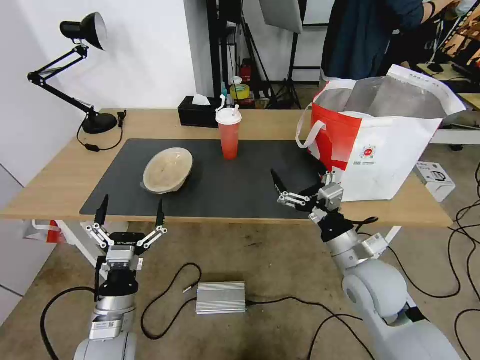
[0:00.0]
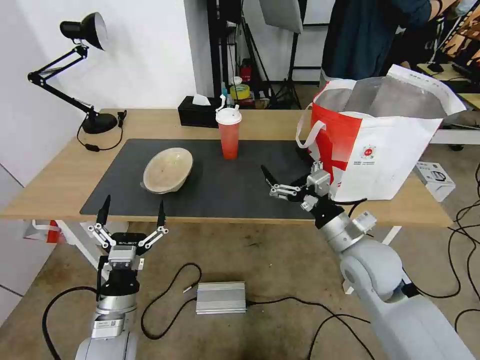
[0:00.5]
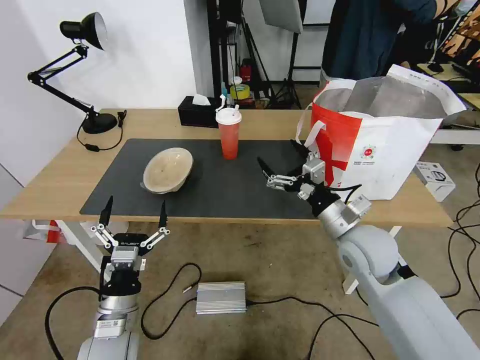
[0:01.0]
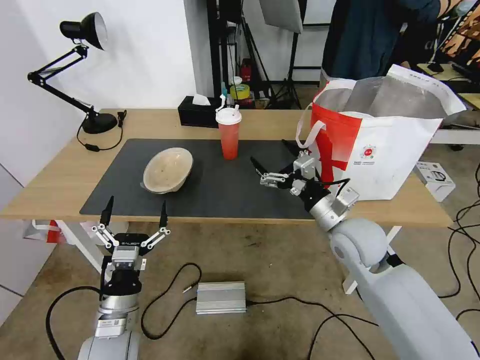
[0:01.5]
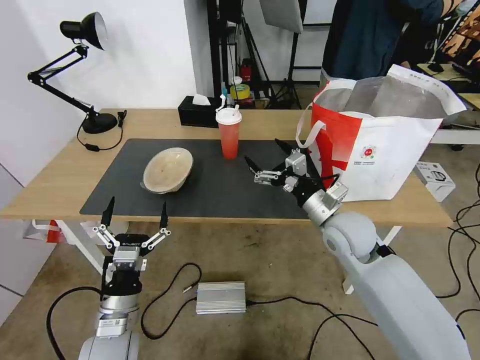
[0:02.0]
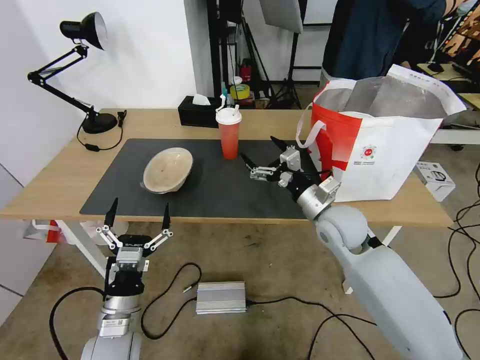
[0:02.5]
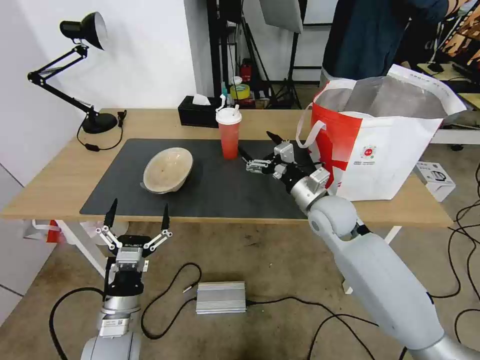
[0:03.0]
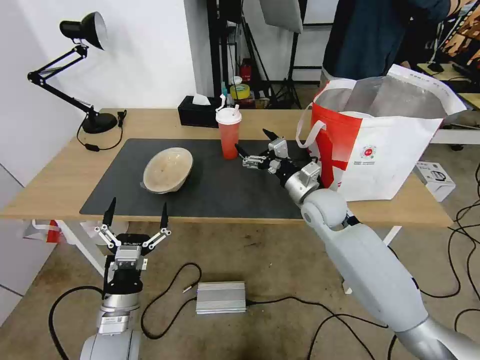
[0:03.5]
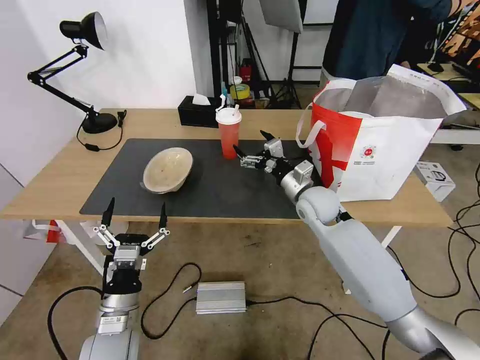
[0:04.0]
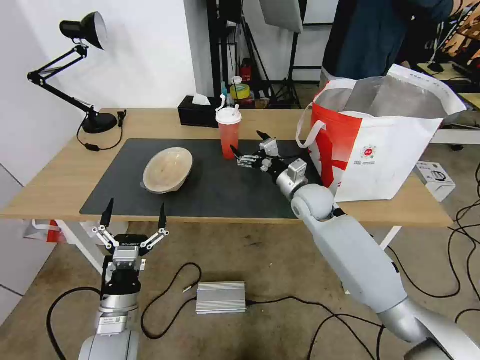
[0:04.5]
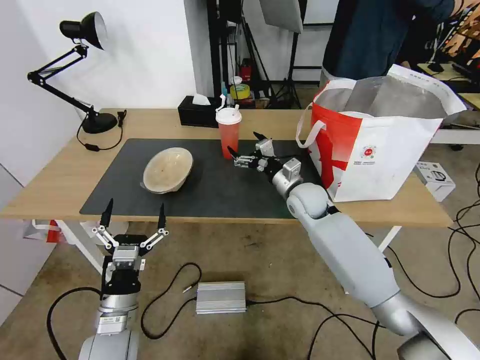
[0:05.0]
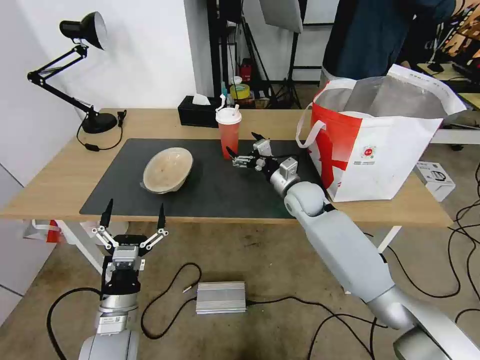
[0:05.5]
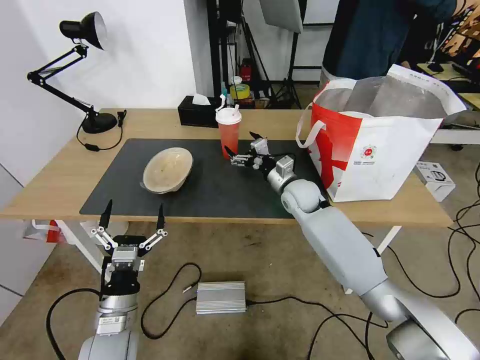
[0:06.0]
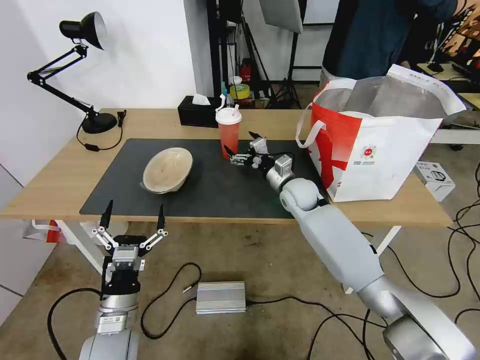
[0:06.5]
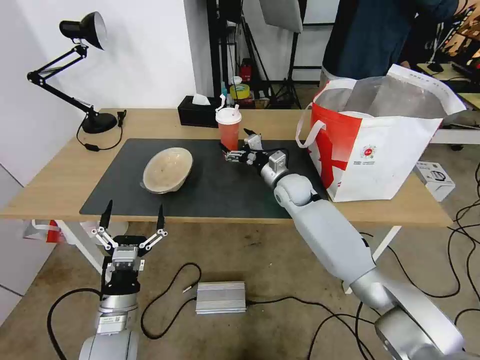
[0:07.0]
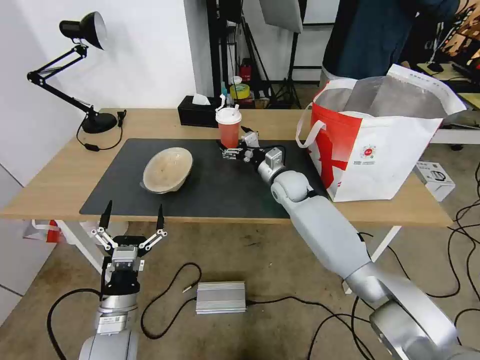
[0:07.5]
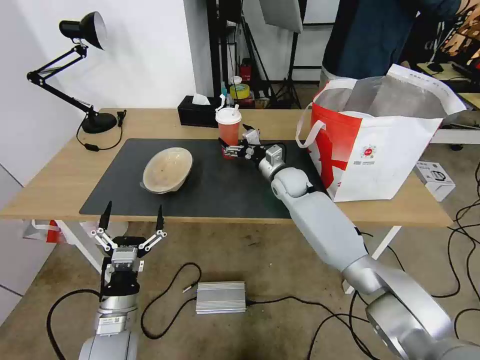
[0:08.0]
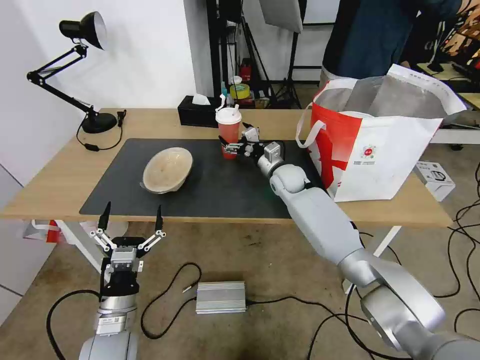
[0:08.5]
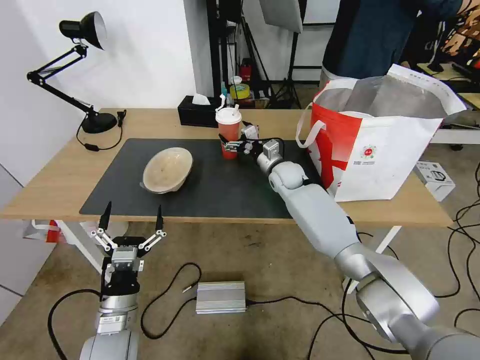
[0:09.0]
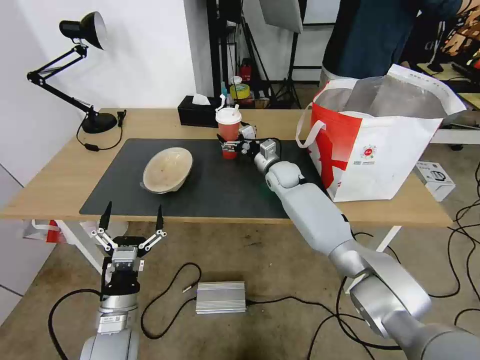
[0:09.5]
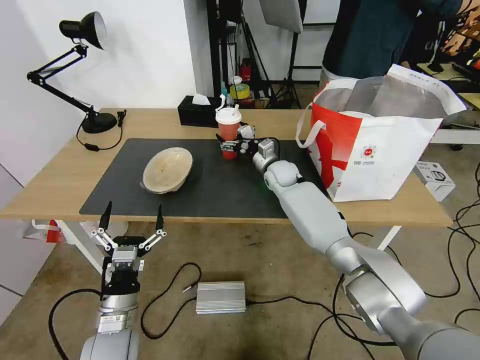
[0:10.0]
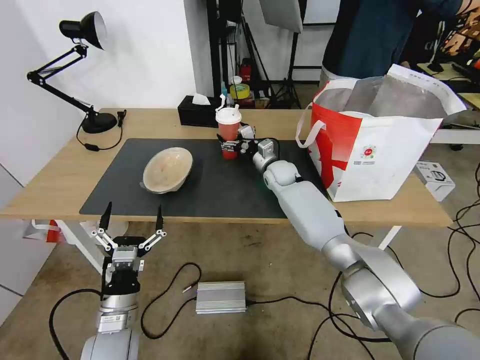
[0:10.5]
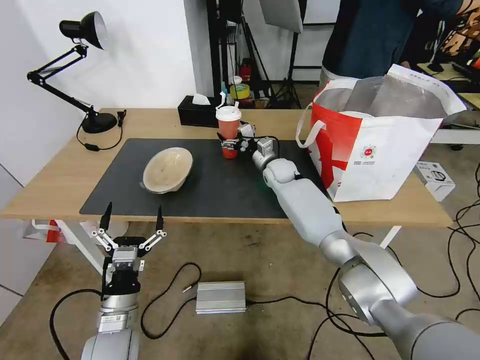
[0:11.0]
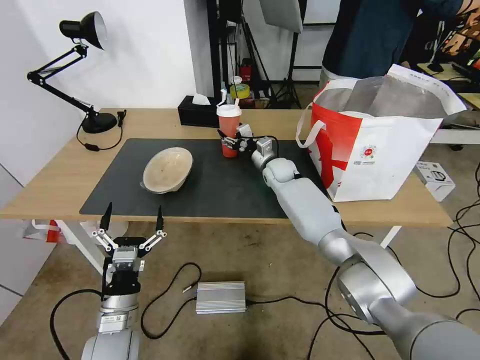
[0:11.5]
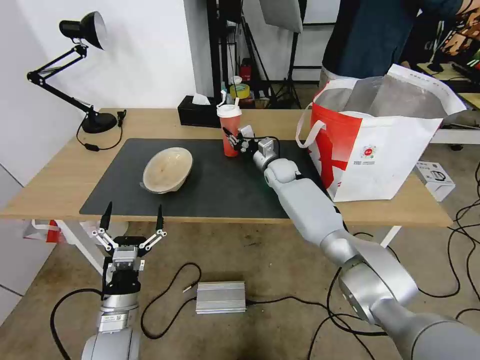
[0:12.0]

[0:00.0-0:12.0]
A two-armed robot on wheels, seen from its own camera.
Task of the whole recording: Pick up the trash from the table and place it into the takeout bag.
0:00.0 to 0:02.0: The right gripper travels forward by about 10 cm.
0:02.0 to 0:04.0: The right gripper shifts approximately 10 cm forward.
0:04.0 to 0:06.0: The right gripper ends up roughly 5 cm from where it was.
0:06.0 to 0:08.0: The right gripper ends up some 5 cm from where it was.
0:08.0 to 0:10.0: The grippers move only a little.
0:10.0 to 0:12.0: The right gripper closes its fingers.

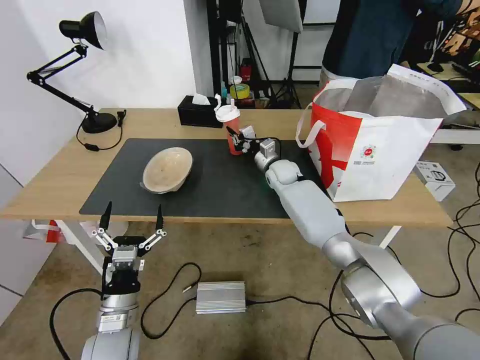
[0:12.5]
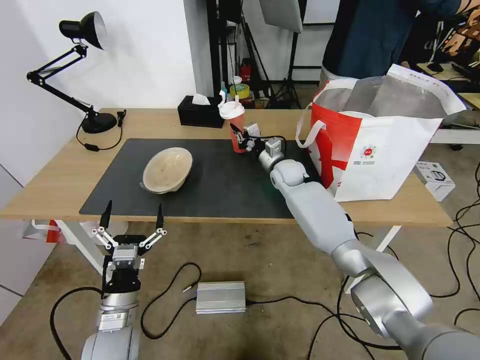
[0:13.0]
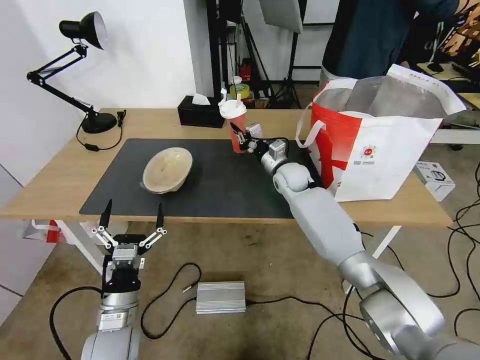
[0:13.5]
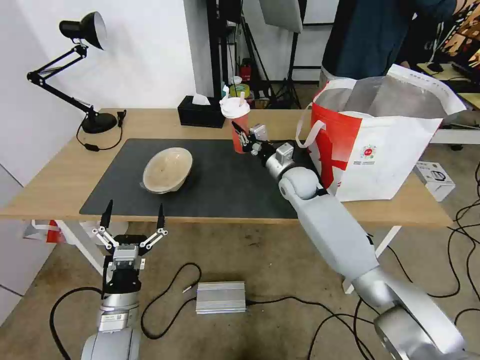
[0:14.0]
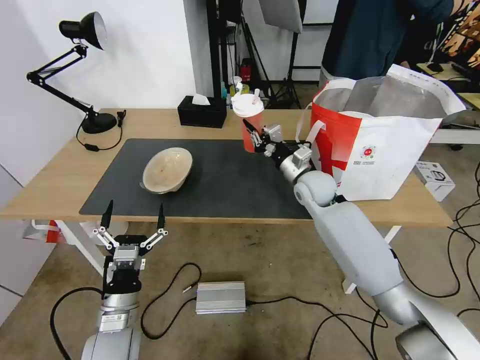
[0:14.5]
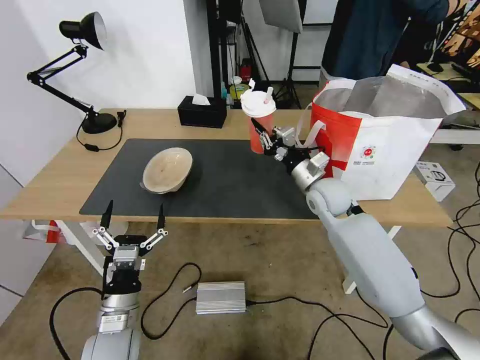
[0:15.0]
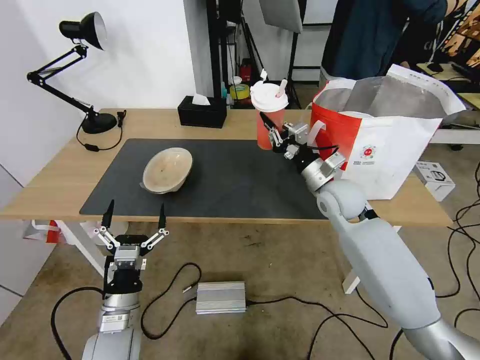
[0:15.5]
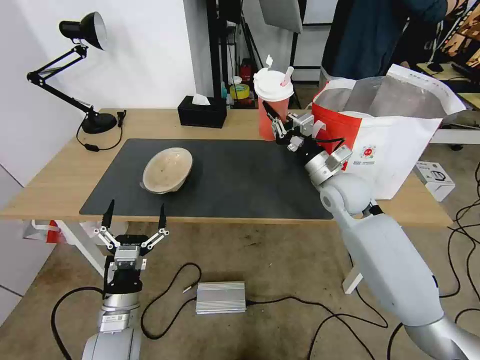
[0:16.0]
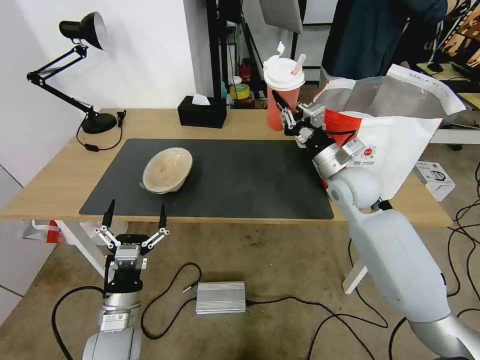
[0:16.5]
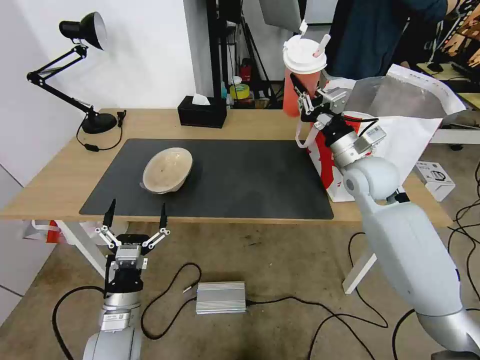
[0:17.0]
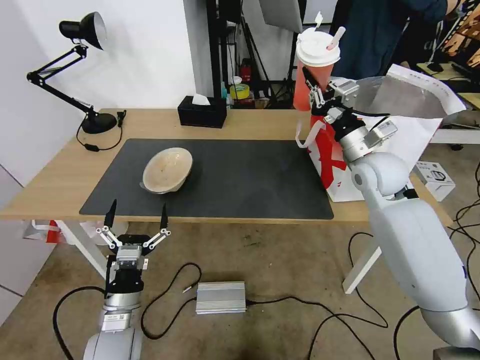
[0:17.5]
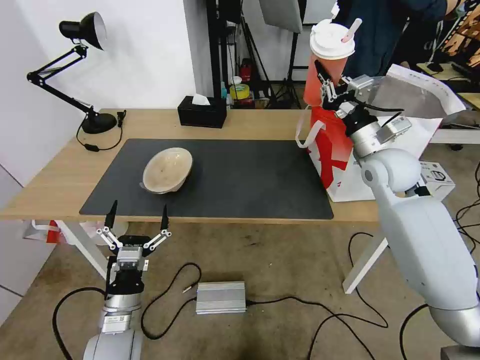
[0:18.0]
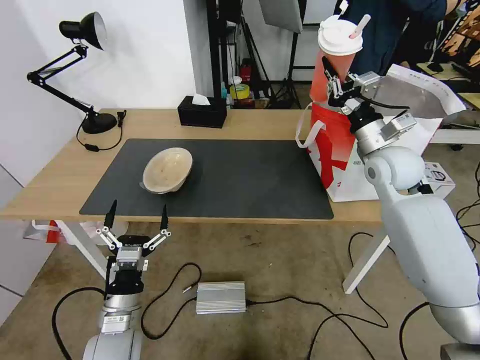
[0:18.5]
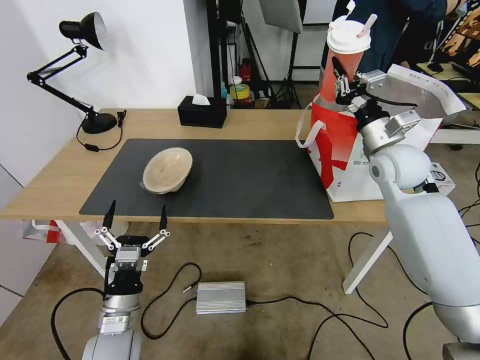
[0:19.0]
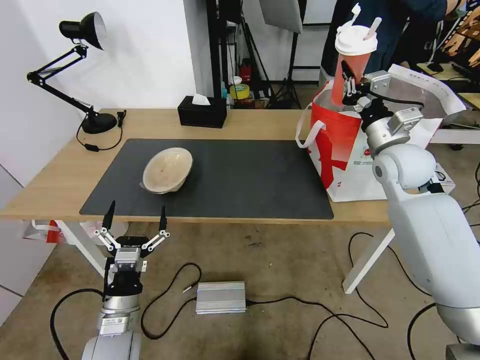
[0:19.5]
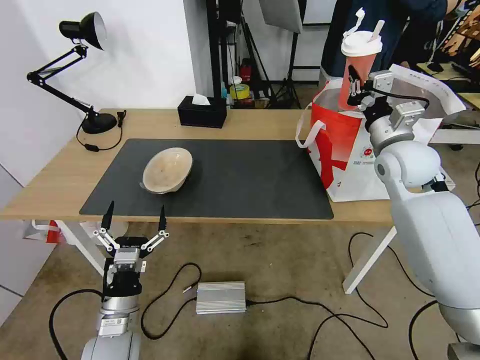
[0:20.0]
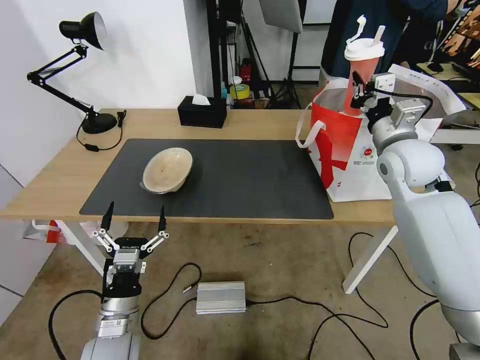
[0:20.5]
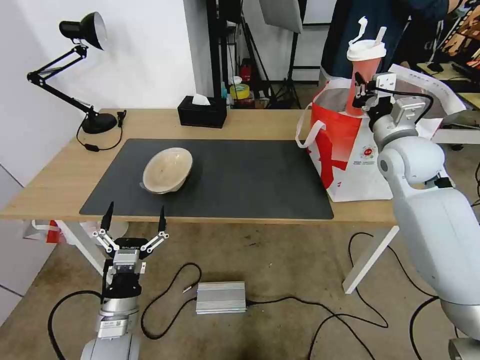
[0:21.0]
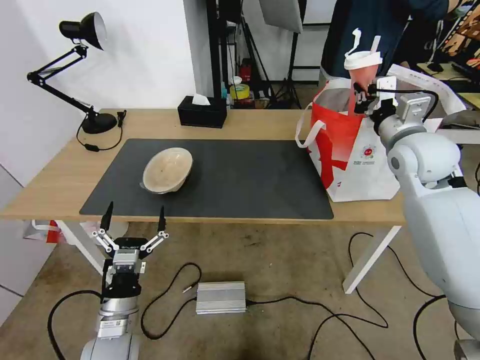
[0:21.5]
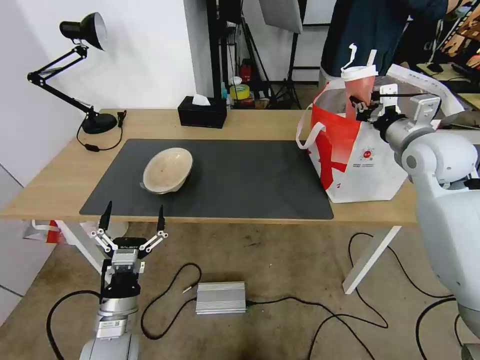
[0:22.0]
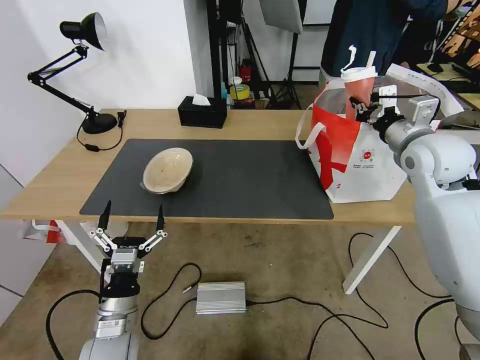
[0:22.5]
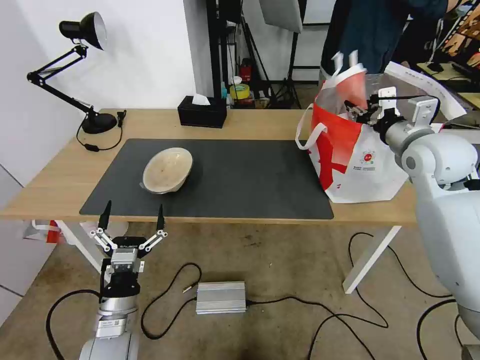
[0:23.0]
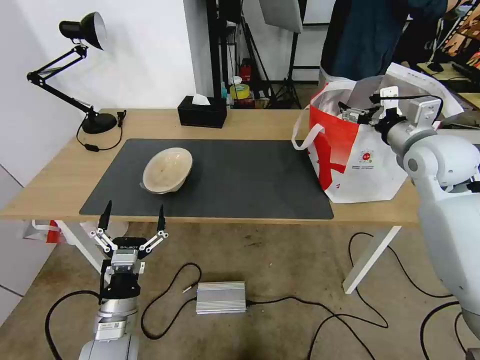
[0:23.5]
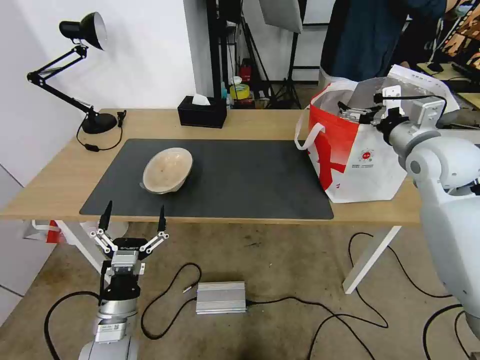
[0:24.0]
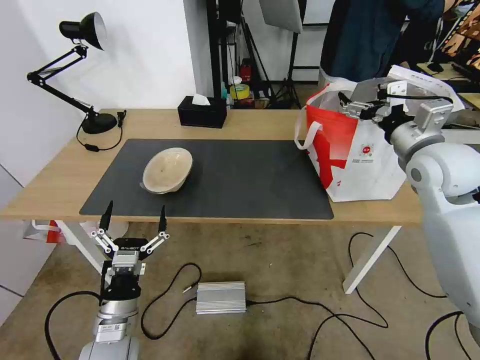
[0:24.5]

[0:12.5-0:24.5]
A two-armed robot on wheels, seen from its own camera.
Task of the whole recording: Pick up the trash from the table and place it into the takeout bag.
0:12.5 to 0:14.5: The right gripper moves backward, to the right and upward, about 15 cm.
0:14.5 to 0:16.5: The right gripper heads upward, to the right and backward, covering approximately 10 cm.
0:16.5 to 0:18.5: The right gripper goes about 5 cm to the right.
0:22.5 to 0:24.5: The right gripper opens its fingers.

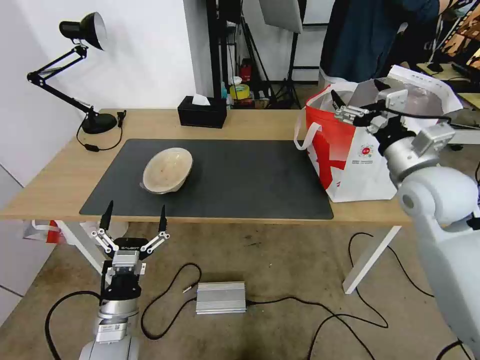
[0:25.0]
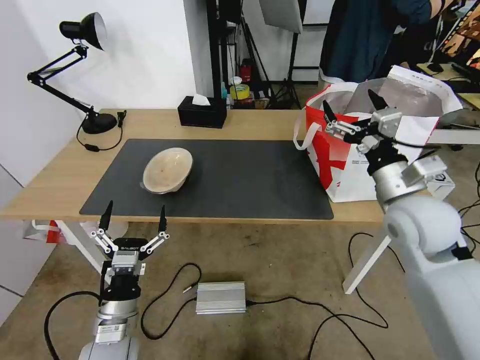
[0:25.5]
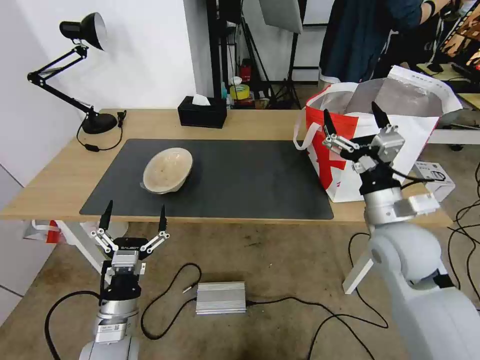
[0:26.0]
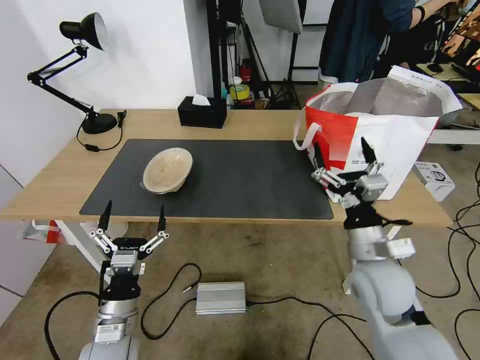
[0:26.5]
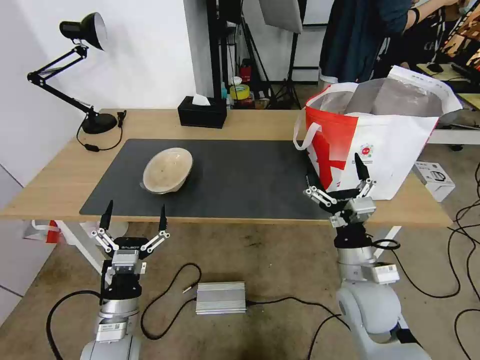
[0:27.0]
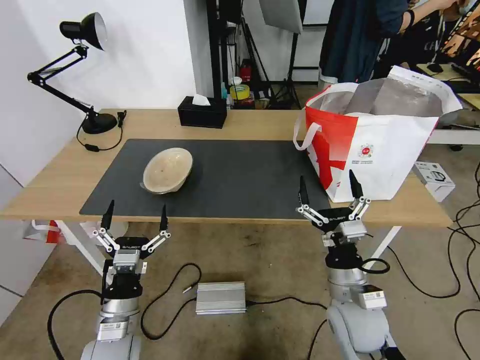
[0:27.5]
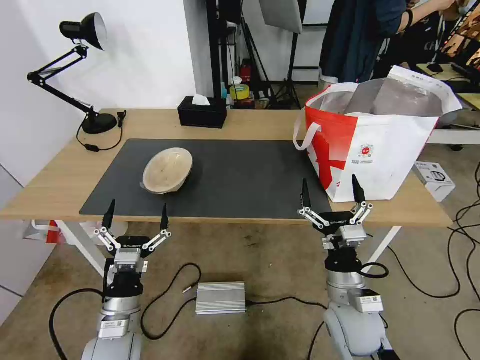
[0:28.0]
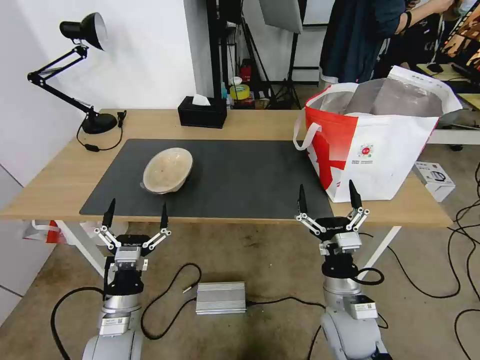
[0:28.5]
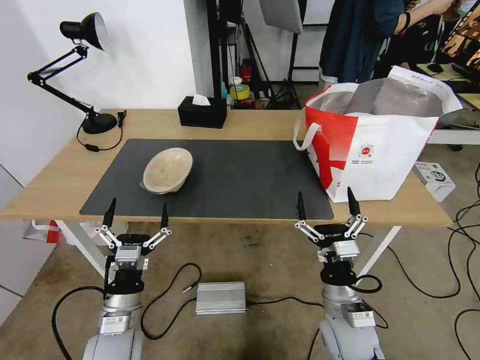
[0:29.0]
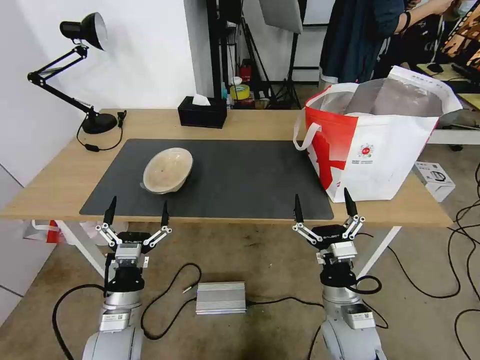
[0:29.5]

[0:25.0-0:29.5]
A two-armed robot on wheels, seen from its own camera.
Task of the whole recording: Pick up the trash from the table and place it into the takeout bag.
0:25.0 to 0:27.0: The right gripper moves downward, backward and to the left, about 25 cm.
0:27.0 to 0:29.5: The right gripper travels downward by about 5 cm.
